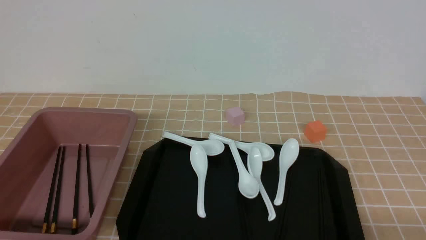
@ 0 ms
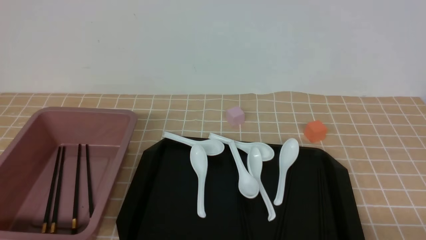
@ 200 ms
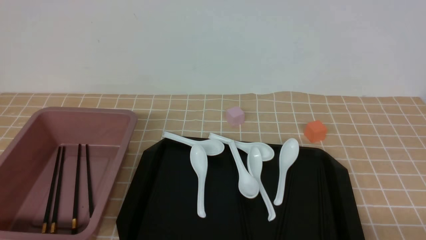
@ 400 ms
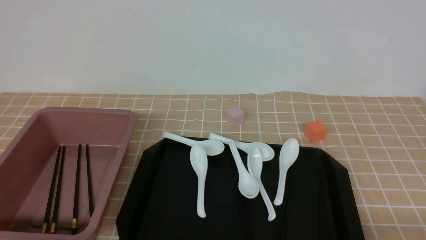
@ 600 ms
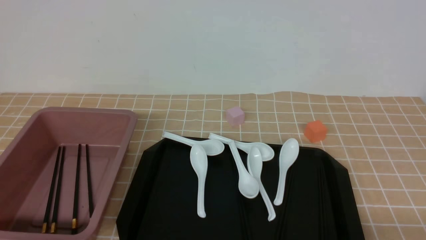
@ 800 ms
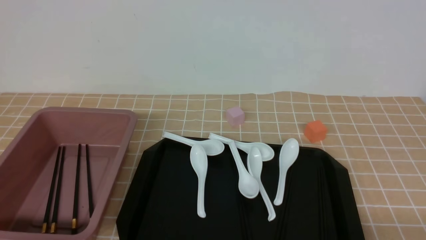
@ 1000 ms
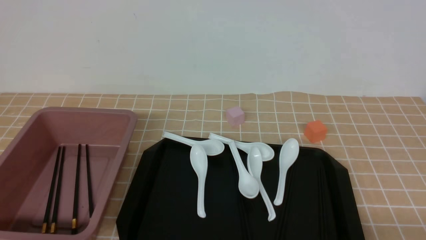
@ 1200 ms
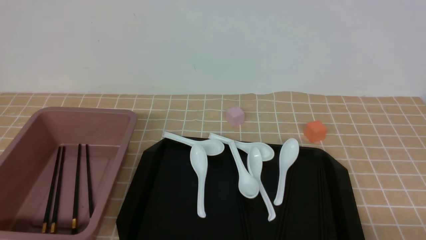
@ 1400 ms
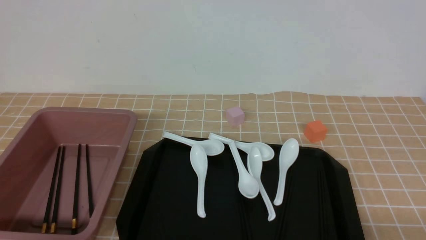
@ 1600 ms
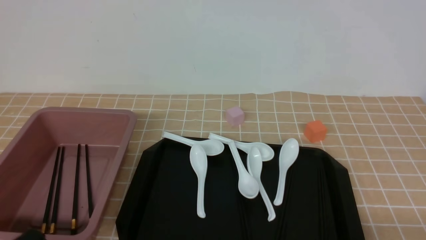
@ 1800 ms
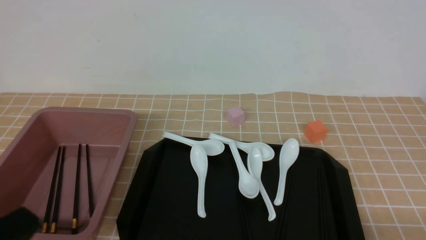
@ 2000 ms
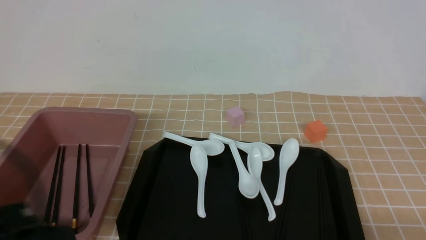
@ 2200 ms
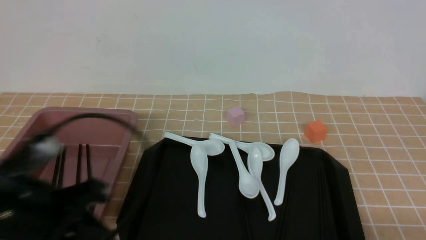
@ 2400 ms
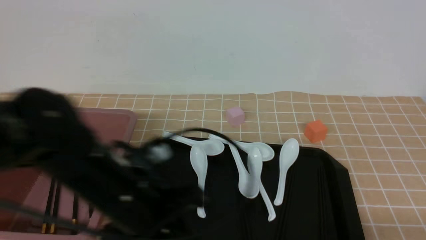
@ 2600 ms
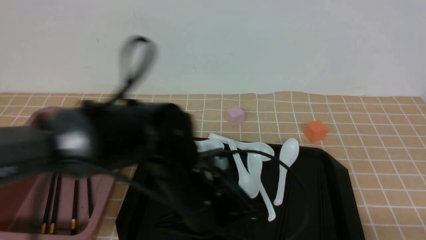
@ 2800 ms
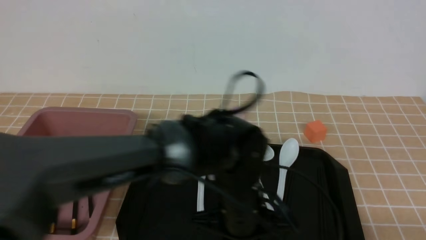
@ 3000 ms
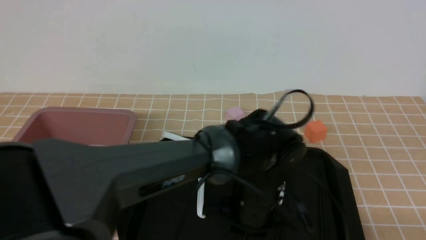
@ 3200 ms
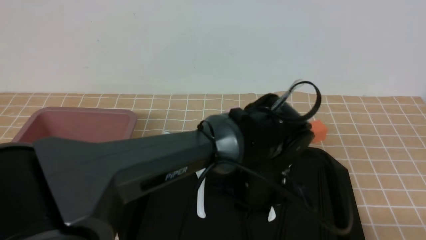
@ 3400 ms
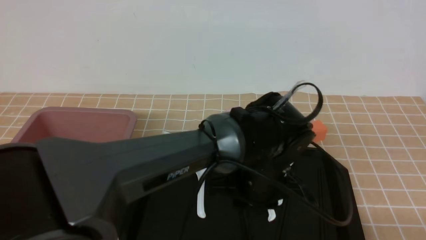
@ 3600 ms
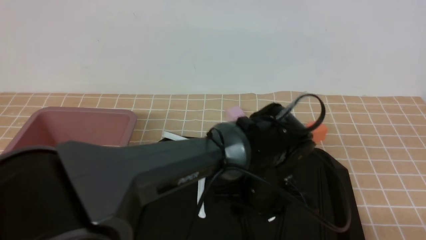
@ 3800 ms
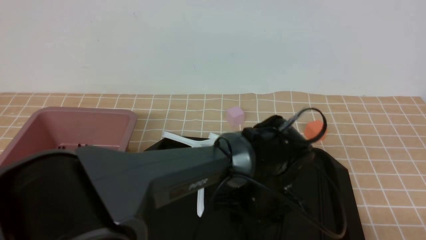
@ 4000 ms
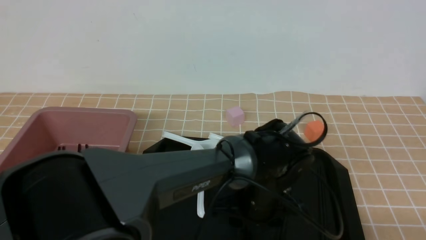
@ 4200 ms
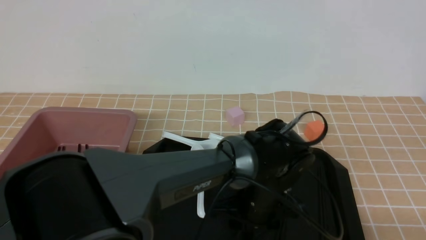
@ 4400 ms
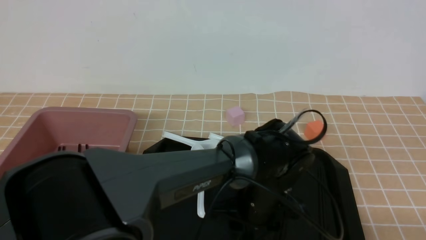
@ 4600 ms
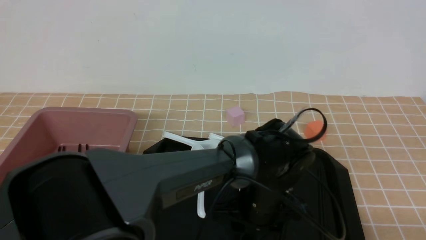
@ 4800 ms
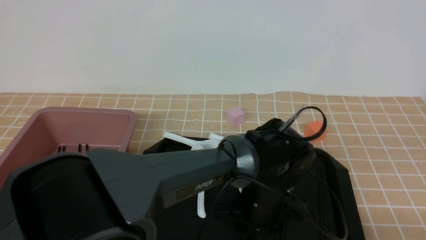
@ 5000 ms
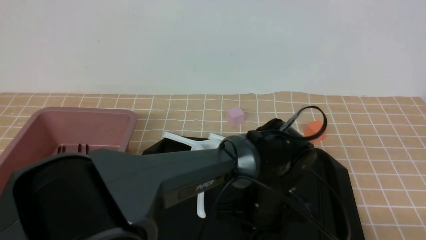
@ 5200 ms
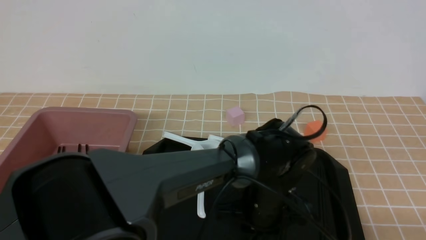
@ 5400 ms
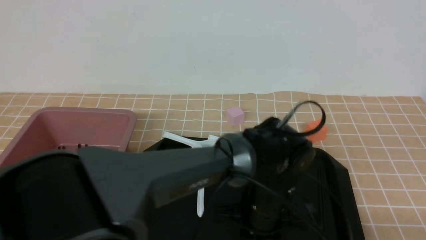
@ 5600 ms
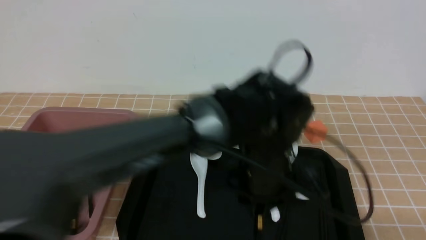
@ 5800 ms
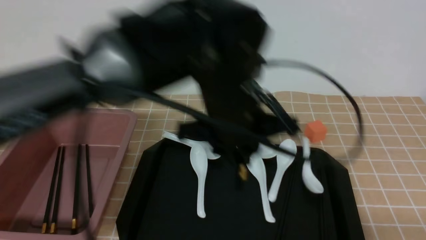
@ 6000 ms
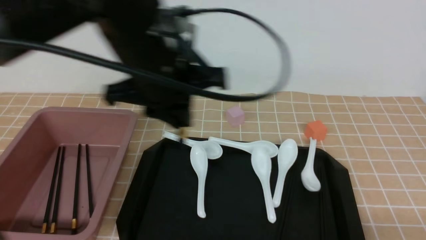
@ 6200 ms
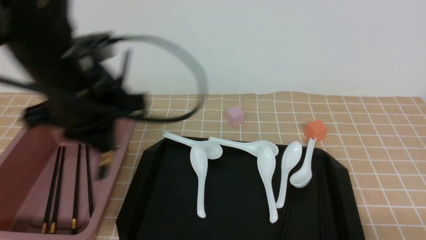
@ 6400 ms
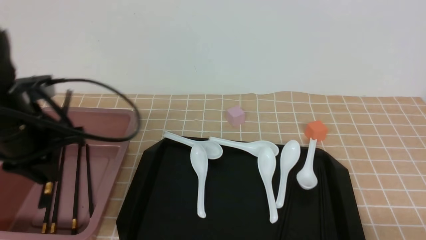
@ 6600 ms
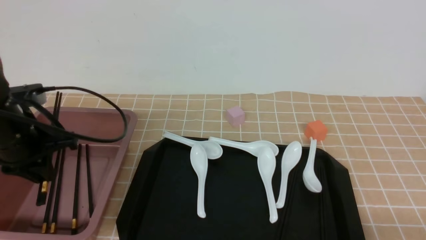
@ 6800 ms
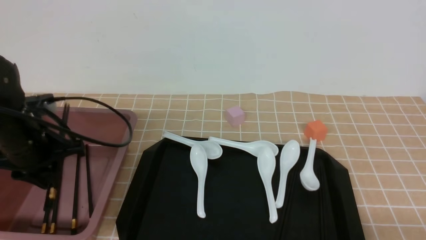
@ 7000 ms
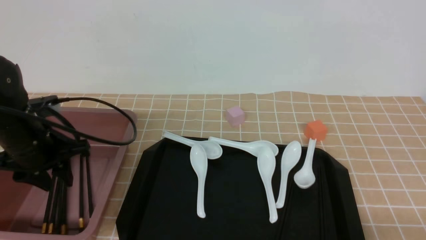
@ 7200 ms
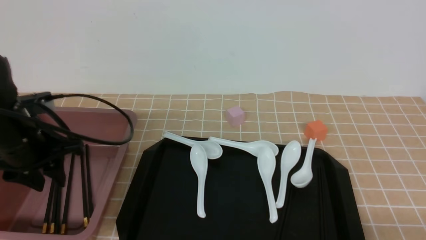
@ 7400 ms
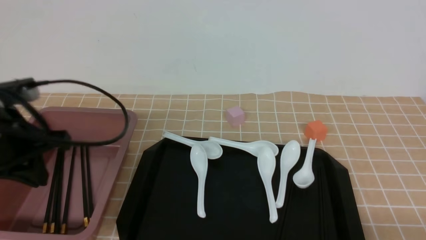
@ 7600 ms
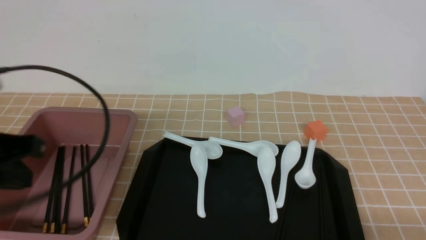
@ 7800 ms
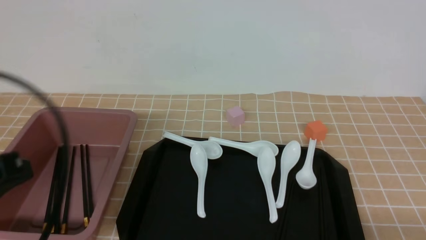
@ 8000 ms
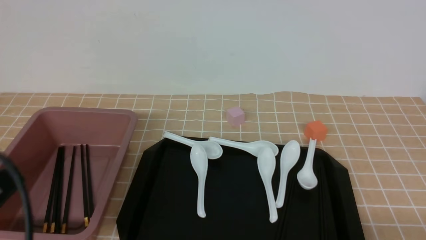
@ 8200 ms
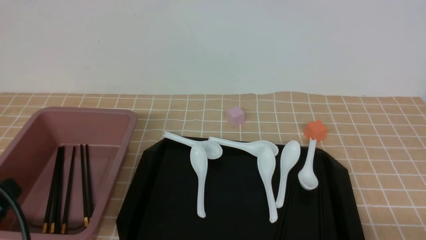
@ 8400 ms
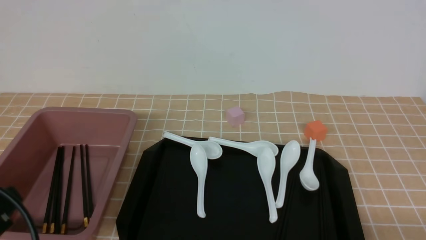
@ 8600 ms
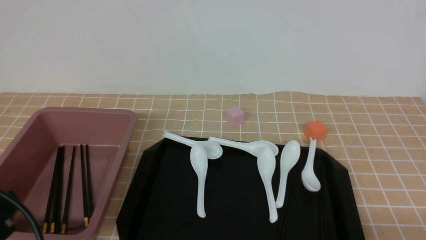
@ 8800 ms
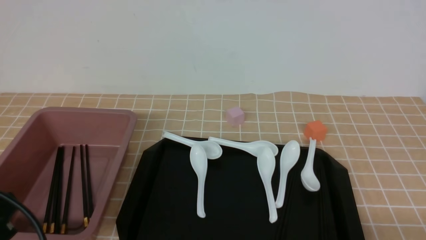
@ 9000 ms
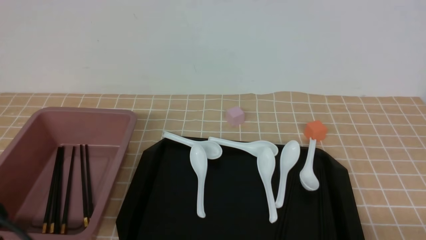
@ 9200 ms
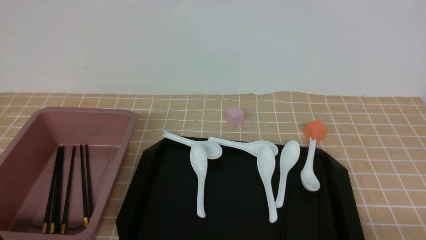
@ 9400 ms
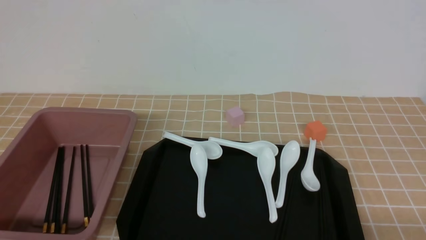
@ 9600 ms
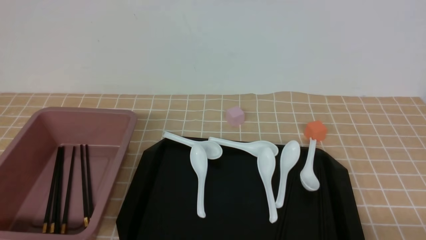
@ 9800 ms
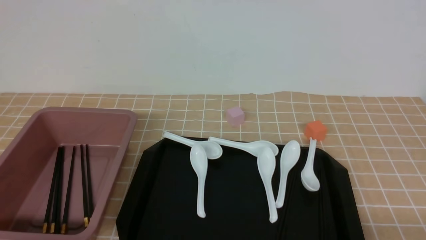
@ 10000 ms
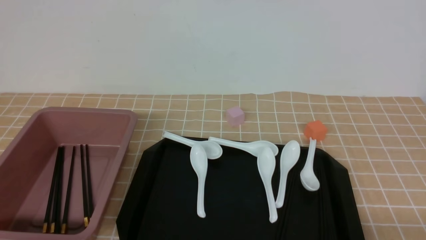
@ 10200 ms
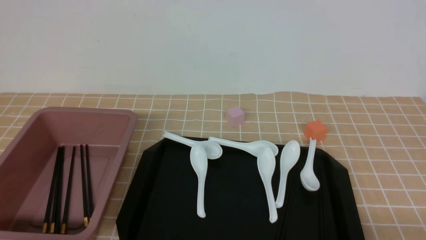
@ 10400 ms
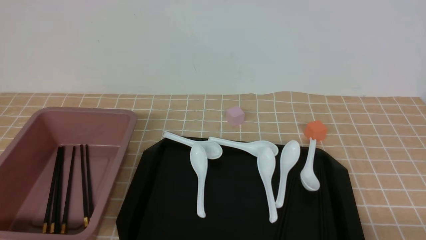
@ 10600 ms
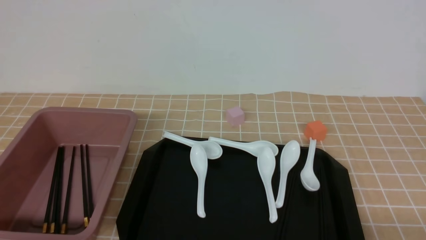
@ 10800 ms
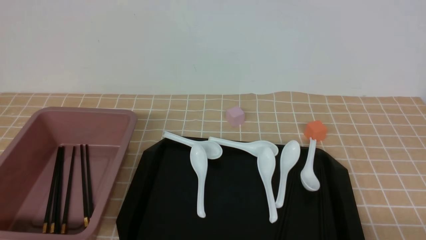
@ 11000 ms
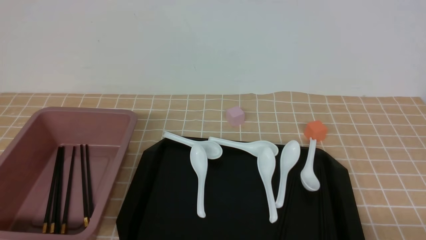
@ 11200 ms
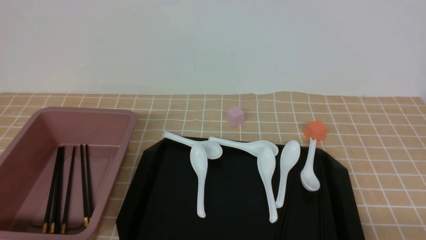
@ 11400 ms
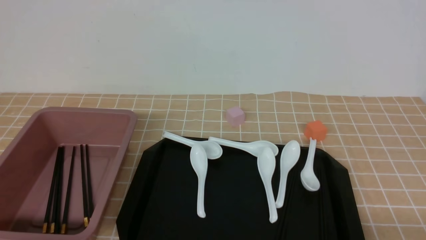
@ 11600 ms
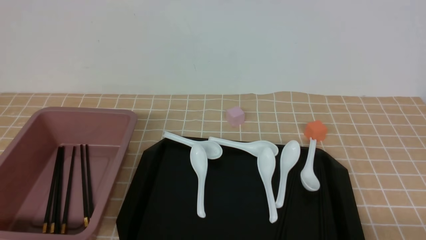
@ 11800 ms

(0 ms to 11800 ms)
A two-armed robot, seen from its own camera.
Step, 0 ms - 5800 ms: use the left arm to grab a pair of chopsticks.
Step, 6000 ms - 7800 ms: use the left arm to put the chopsticks into the lunch box.
1400 ms - 3000 ms: The left gripper shifts roughly 30 cm to the right and forward.
3000 ms - 4400 ms: The left gripper shifts approximately 10 cm to the right and downward, and opens its fingers.
4400 ms - 6000 ms: The left gripper heads upward, covering some 15 cm, and closes its fingers.
6000 ms - 7400 ms: The left gripper is displaced to the left by roughly 30 cm, and opens its fingers.
7400 ms - 8800 ms: The left gripper is displaced backward by roughly 20 cm, and closes its fingers.
8800 ms - 10400 ms: The left gripper moves downward, some 10 cm.
10400 ms - 11800 ms: Both grippers stay put.

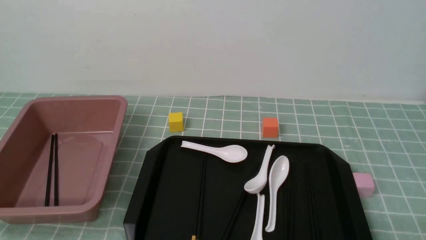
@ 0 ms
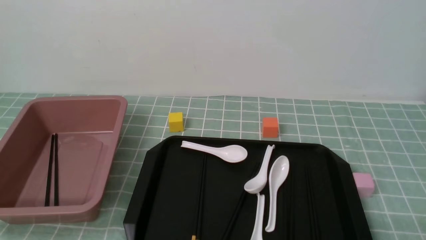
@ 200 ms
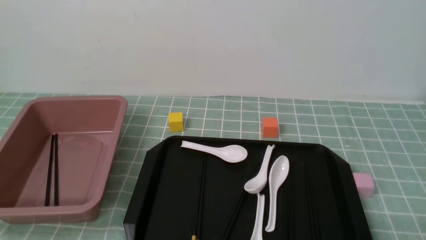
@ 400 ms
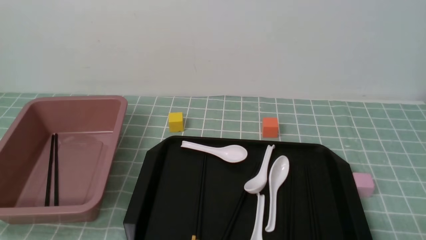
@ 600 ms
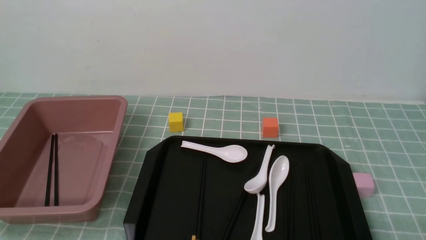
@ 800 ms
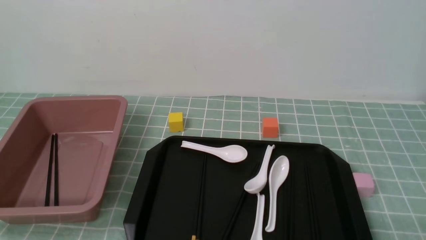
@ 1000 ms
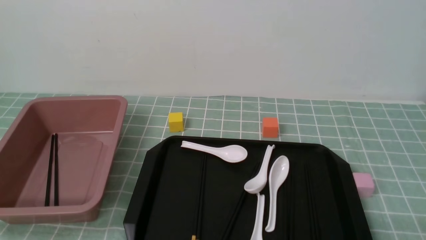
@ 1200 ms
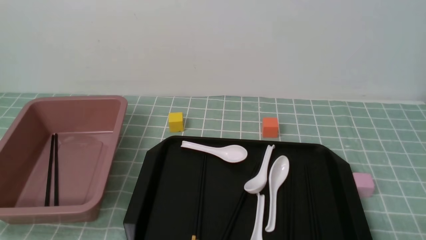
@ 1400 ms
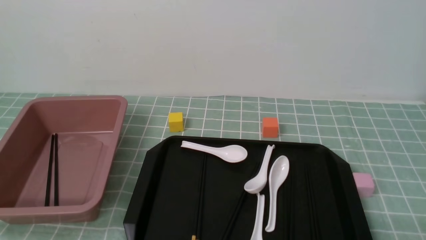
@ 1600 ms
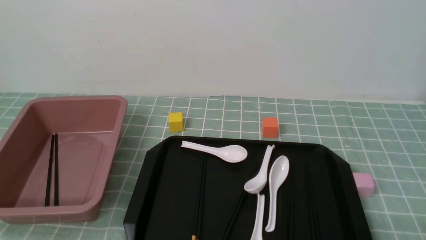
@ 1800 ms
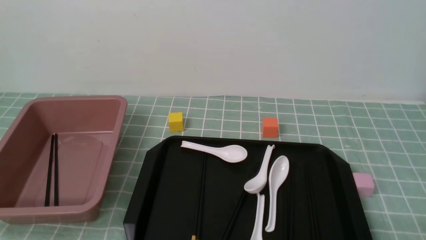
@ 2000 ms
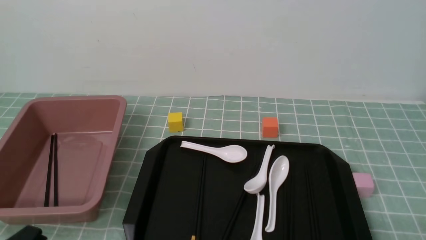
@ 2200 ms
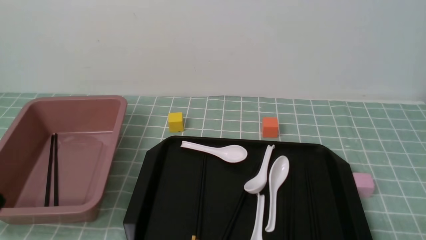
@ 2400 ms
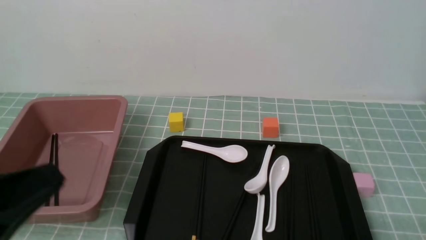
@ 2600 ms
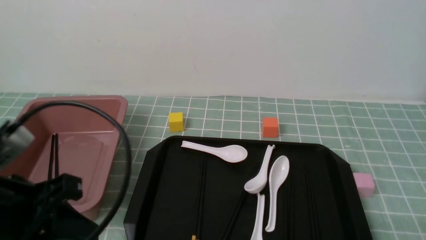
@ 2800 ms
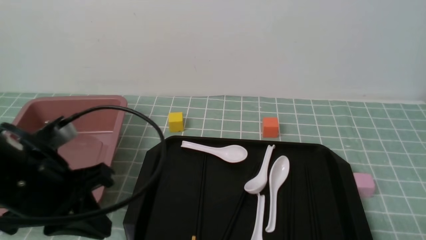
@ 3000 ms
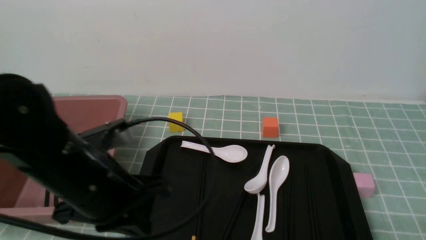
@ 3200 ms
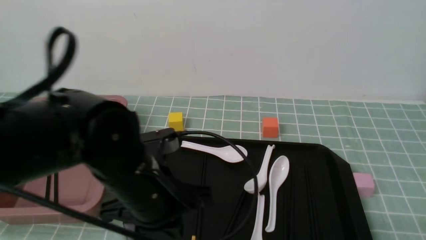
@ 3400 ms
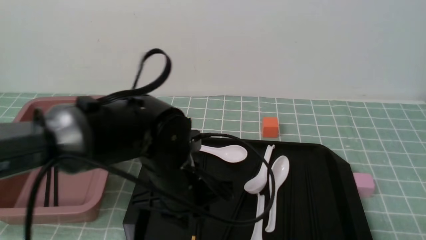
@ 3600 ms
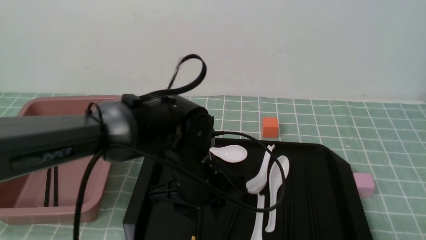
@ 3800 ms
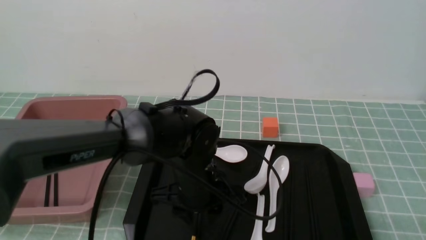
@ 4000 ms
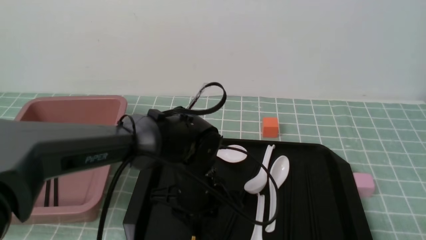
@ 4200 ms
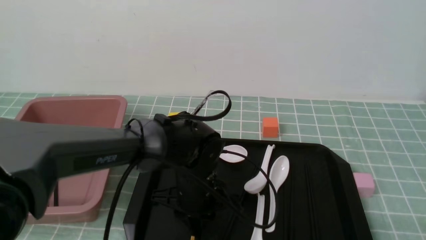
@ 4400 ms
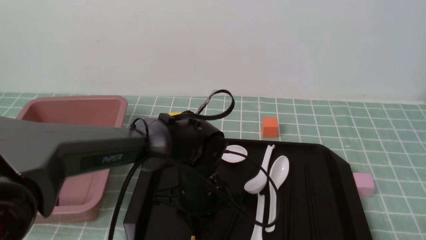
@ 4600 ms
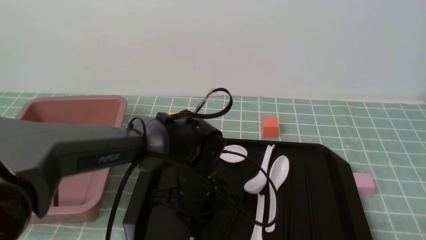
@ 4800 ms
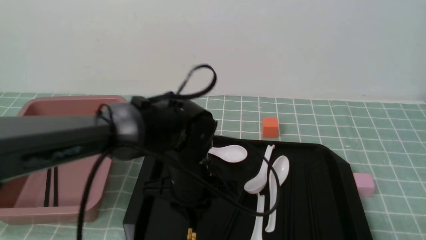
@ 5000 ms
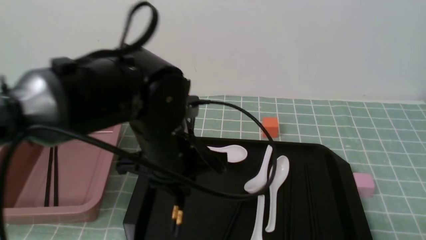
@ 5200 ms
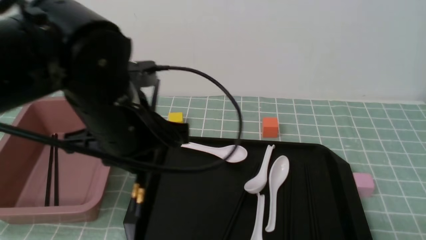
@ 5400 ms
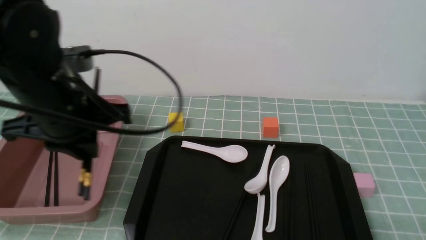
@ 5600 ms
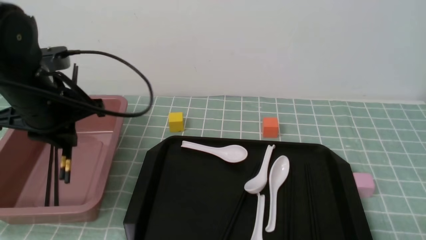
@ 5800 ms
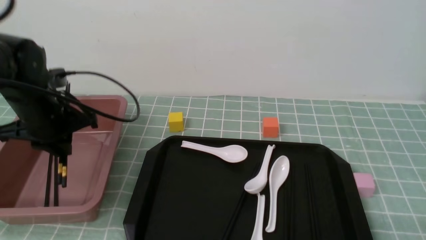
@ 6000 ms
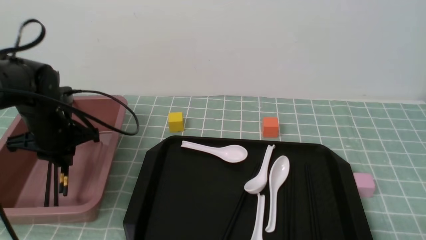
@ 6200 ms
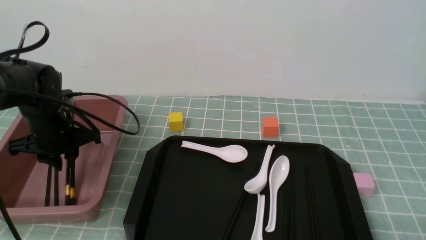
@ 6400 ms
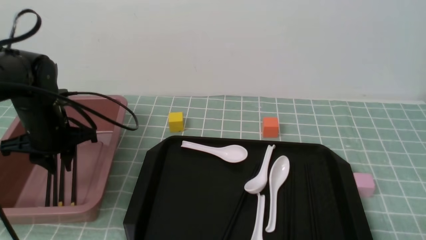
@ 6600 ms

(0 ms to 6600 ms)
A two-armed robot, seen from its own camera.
Step, 0 ms - 5200 ms: use the left arm to grab a pair of chopsticks.
1600 ms - 3200 ms: The left gripper goes some 20 cm forward, to the right and upward.
3200 ms - 5000 ms: The left gripper heads to the right, forward and downward, covering about 15 cm, and opens its fingers.
5000 ms - 6600 ms: The left gripper shifts about 25 cm to the left.
